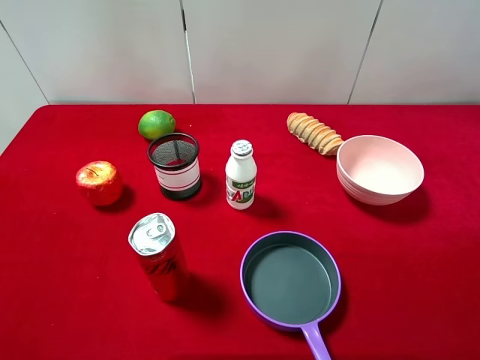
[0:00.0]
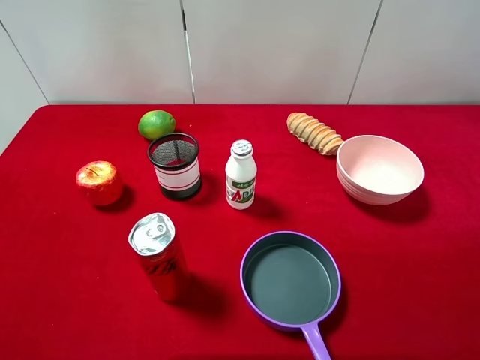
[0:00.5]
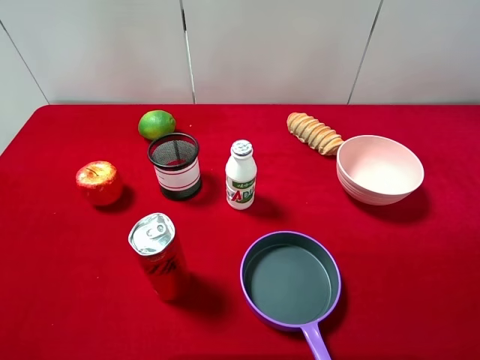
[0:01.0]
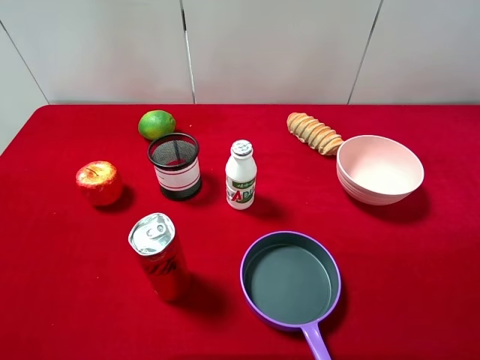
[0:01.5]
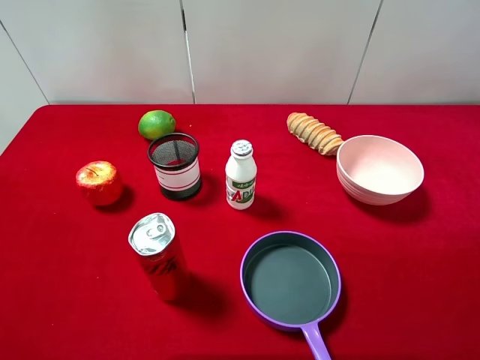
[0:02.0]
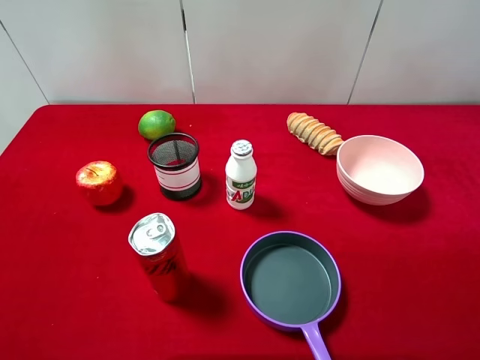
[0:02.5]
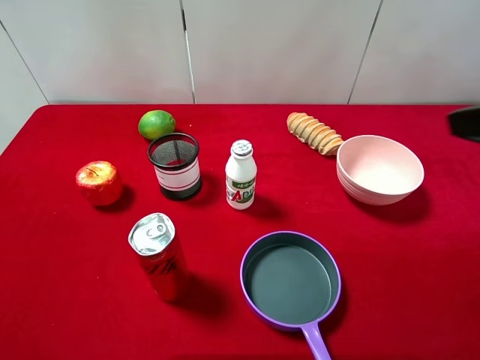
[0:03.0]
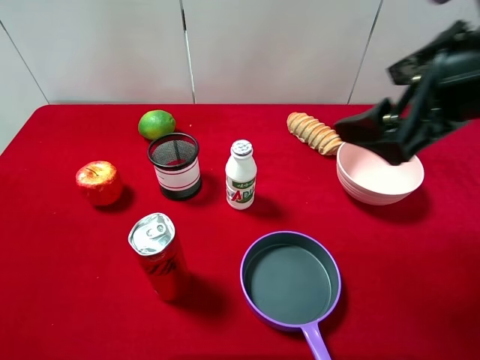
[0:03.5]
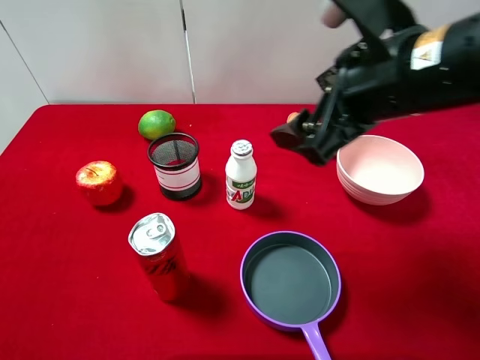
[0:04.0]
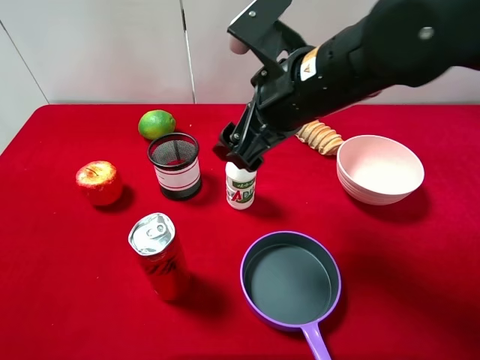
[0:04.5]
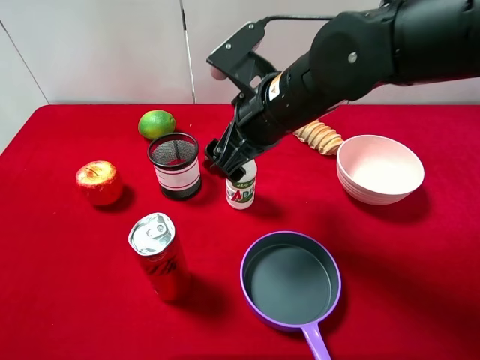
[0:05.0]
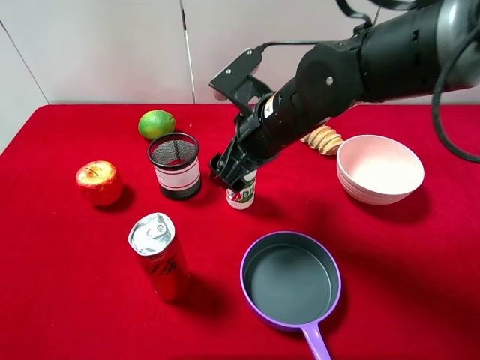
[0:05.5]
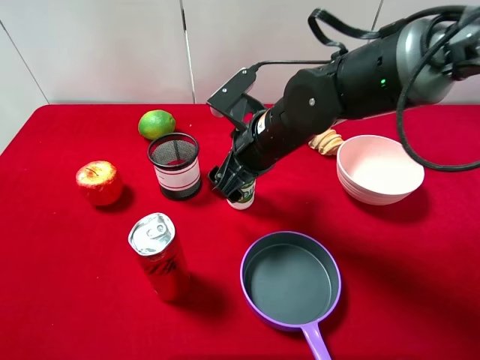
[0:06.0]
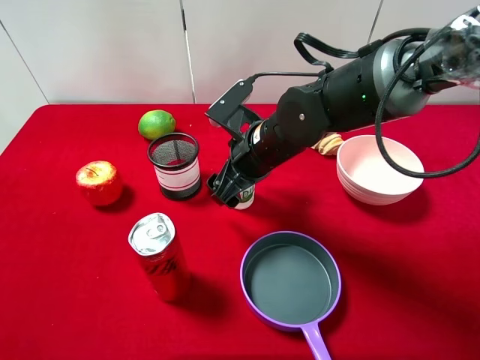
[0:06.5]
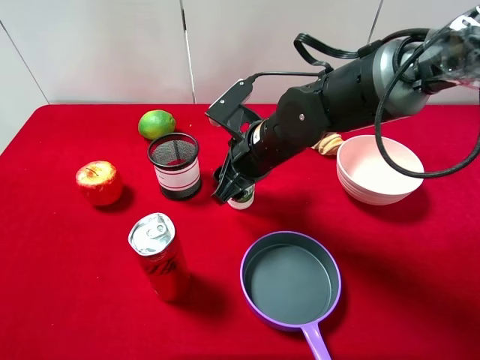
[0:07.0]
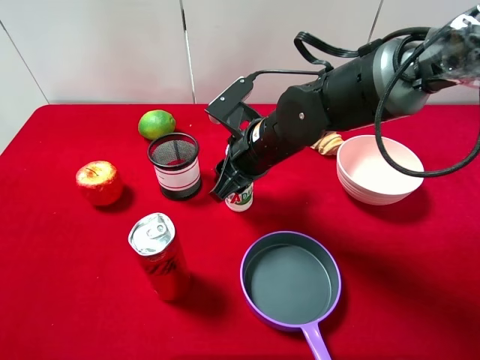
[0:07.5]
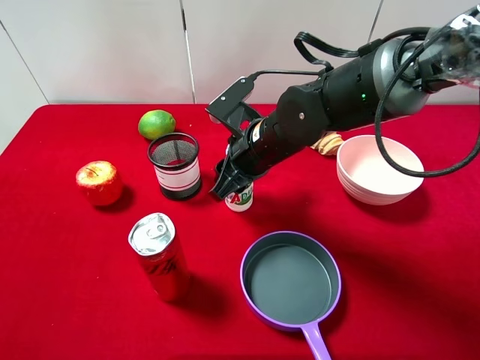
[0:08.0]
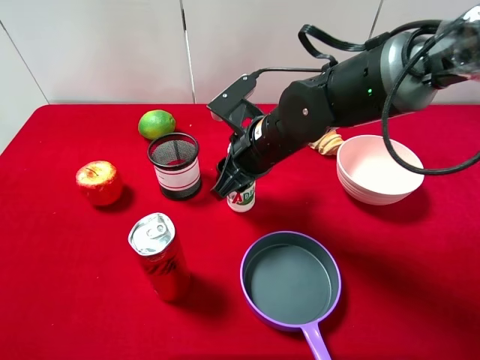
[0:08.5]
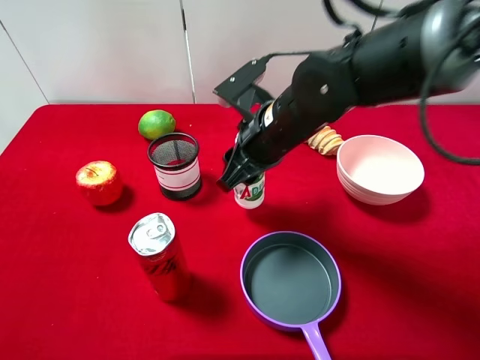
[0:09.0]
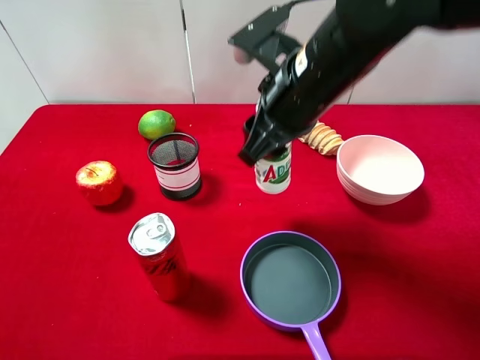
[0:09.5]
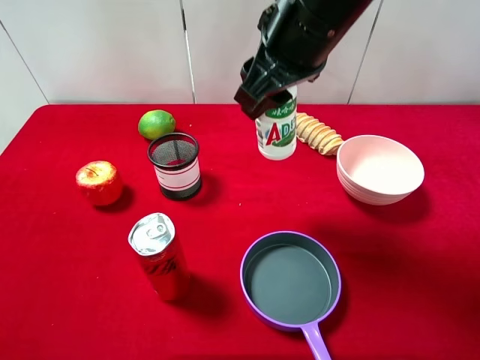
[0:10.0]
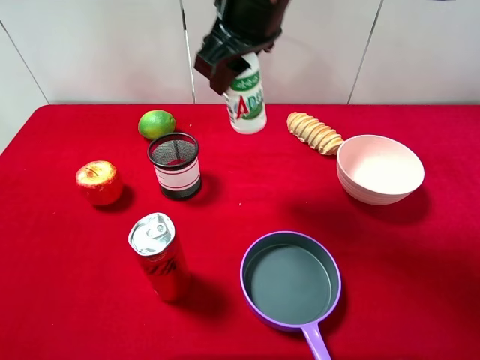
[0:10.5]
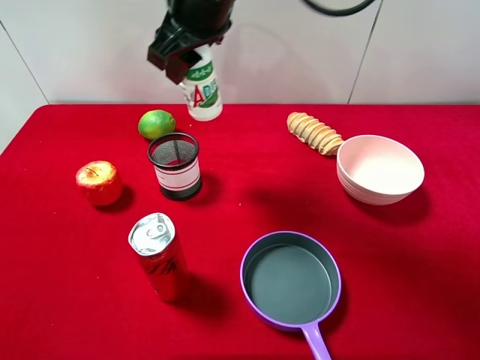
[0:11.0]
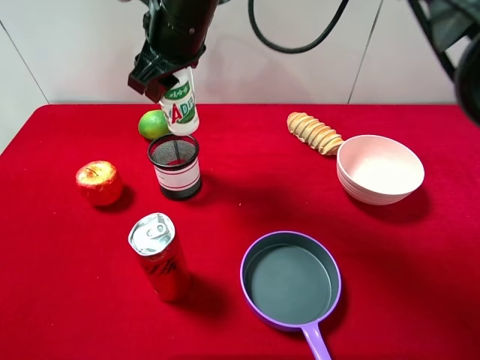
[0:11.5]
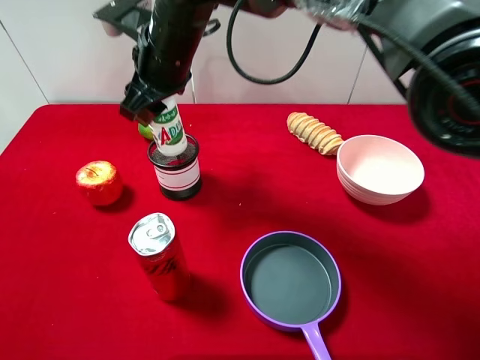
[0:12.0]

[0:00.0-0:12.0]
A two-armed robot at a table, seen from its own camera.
Task of the whole recording: pick up an item with a gripper and place it in a random container on the desktop.
0:00.0 to 0:02.0: Both grippers stay about where they are.
0:02.0 to 0:04.0: The right gripper goes about 25 cm forward and to the left.
0:04.0 to 0:06.0: The right gripper moves downward, to the left and forward, roughly 15 cm.
0:06.0 to 0:08.0: The right gripper closes its fingers.
0:08.0 to 0:10.0: The right gripper shifts roughly 15 cm upward.
0:10.0 to 0:12.0: The right gripper goes about 20 cm to the left, forward and downward.

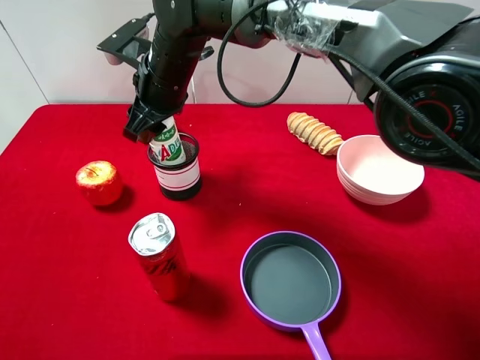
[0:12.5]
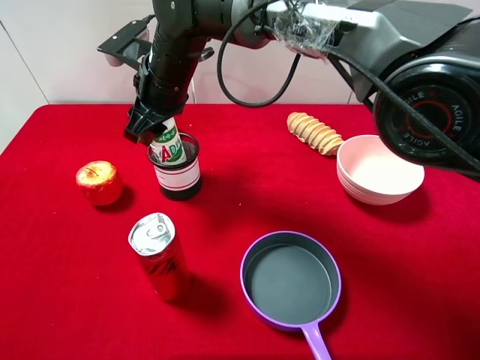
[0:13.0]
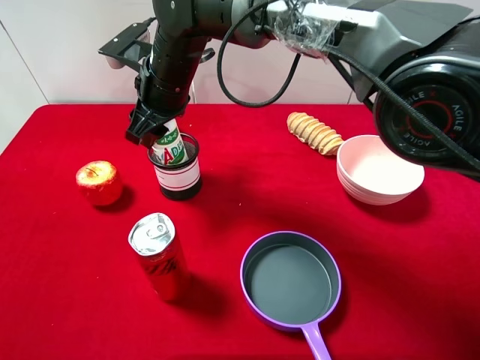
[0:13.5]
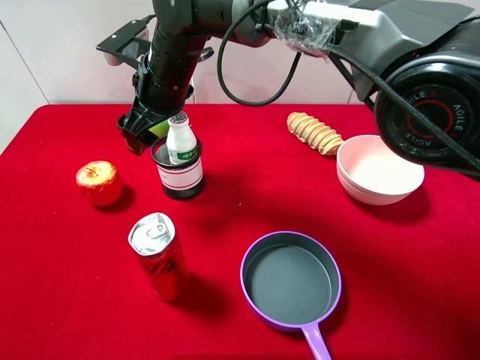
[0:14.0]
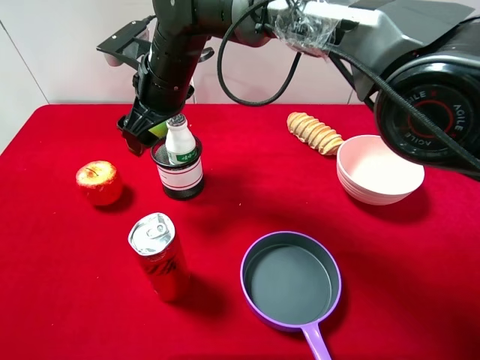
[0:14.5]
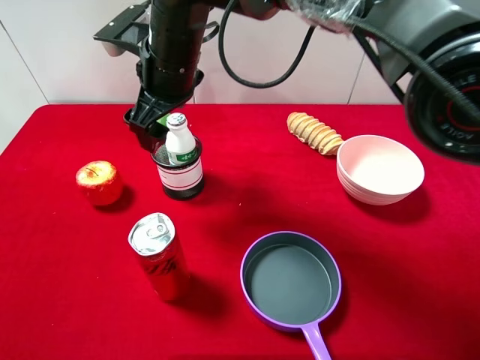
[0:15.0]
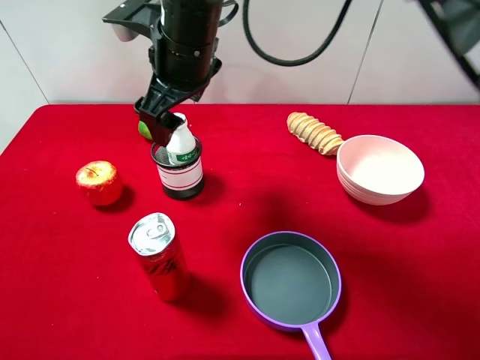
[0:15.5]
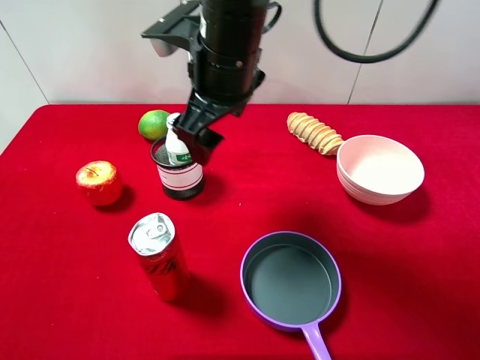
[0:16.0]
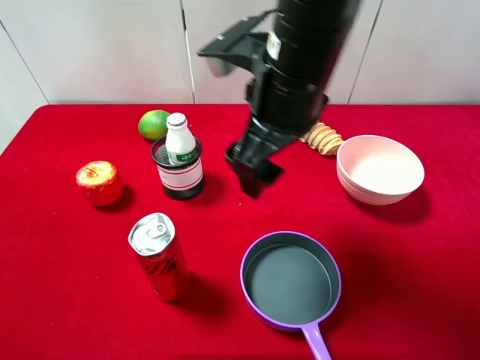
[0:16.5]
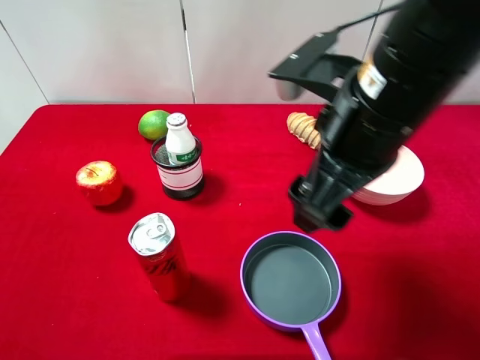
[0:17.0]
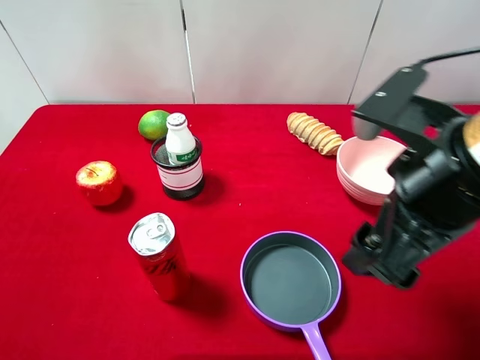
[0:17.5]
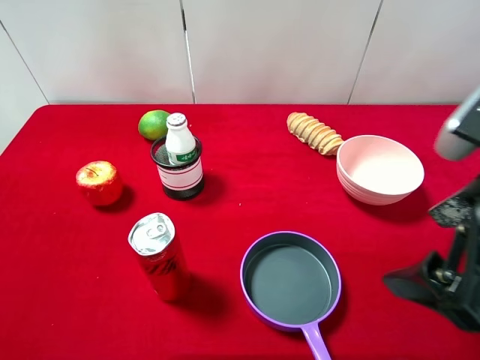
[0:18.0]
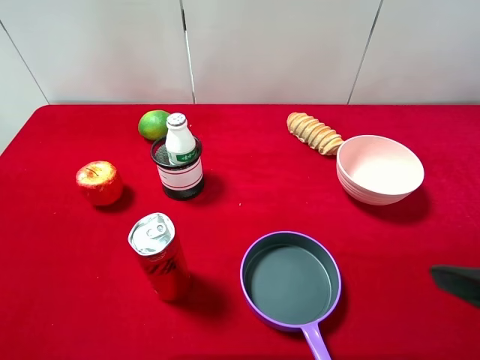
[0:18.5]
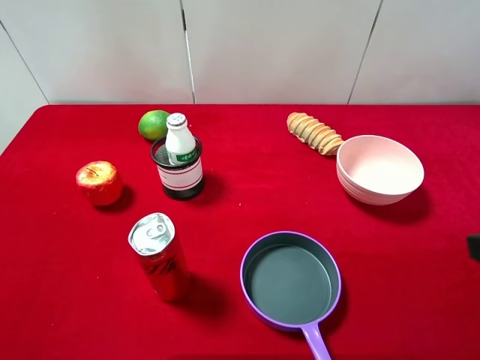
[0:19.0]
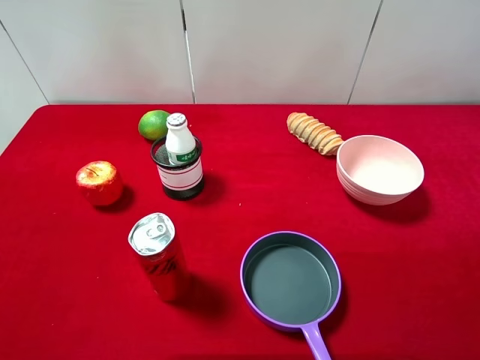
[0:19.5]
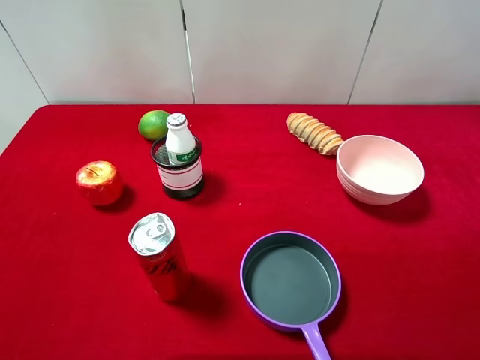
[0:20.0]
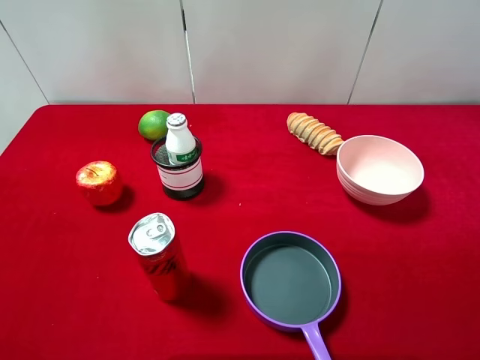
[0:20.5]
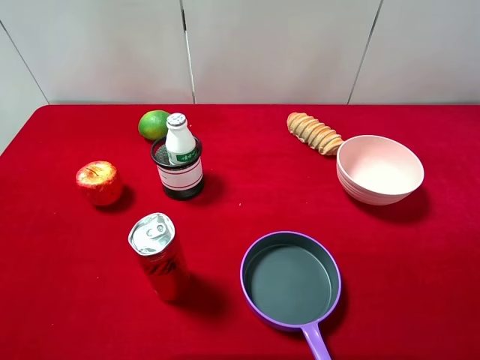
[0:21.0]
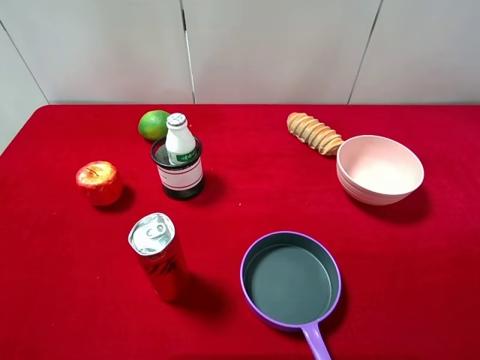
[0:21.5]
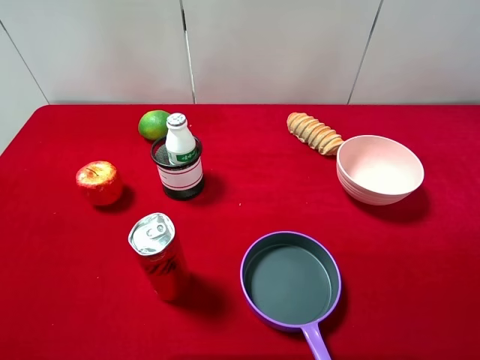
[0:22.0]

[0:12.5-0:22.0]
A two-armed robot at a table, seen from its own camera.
Task of the whole recording: pick up an item with a gripper and place it in a random container on the desktop.
0:12.5 to 0:14.5: The right gripper opens its fingers.
0:14.5 to 0:16.5: The right gripper goes some 20 cm to the right, backward and upward.
0:16.5 to 0:18.0: The right gripper moves to the right and backward, approximately 20 cm.
0:18.0 to 0:20.0: The right gripper is displaced to the right by some 10 cm.

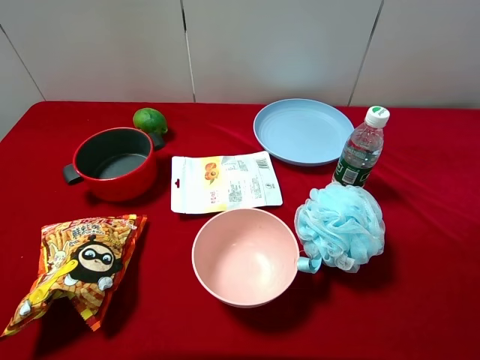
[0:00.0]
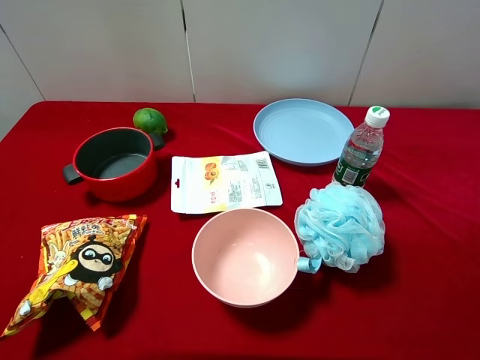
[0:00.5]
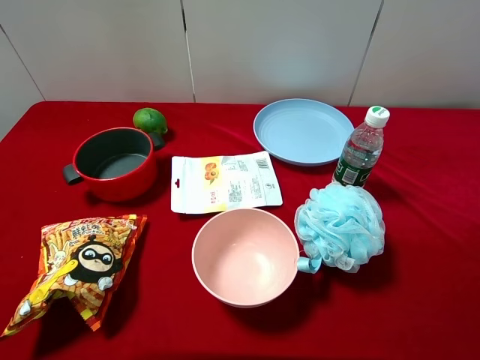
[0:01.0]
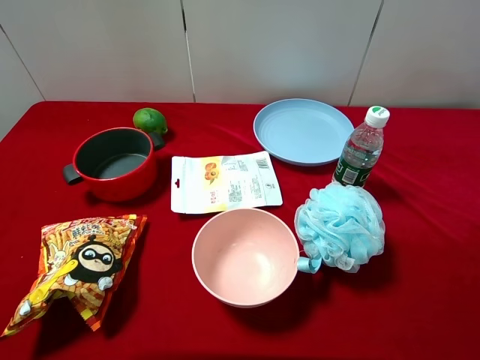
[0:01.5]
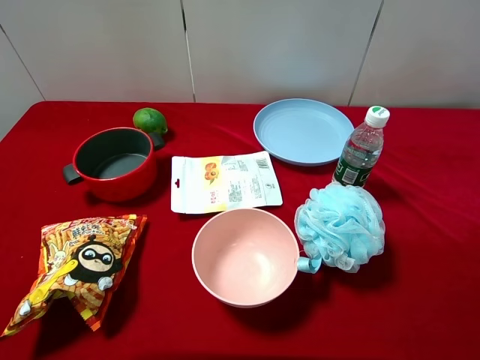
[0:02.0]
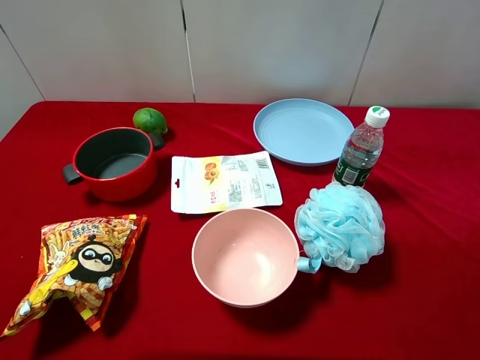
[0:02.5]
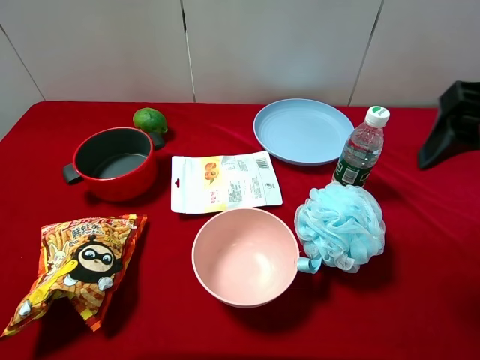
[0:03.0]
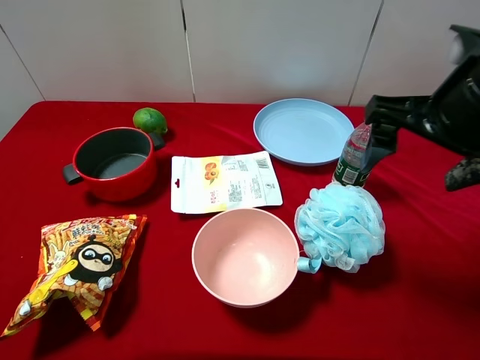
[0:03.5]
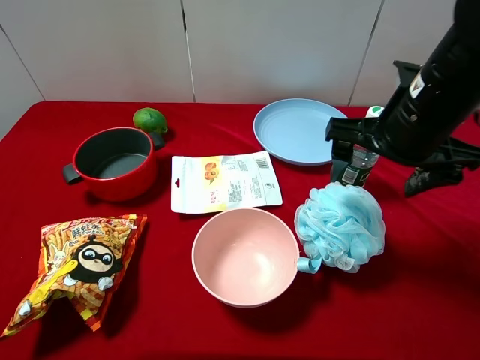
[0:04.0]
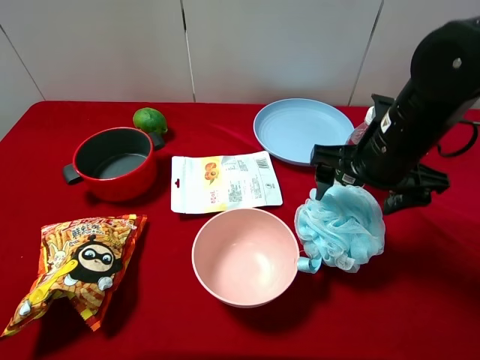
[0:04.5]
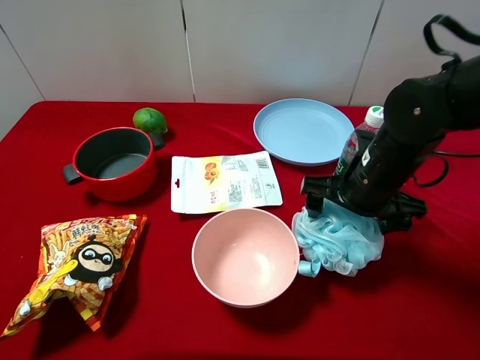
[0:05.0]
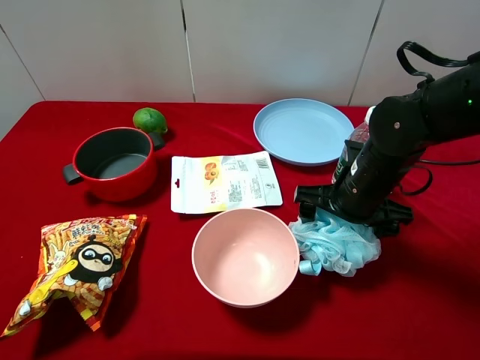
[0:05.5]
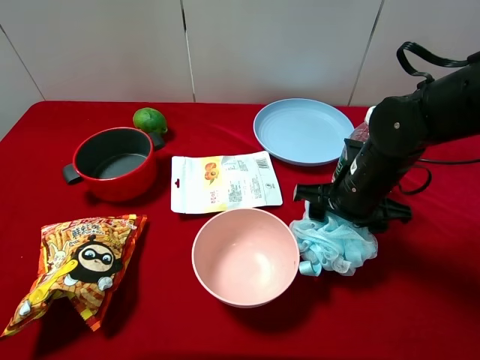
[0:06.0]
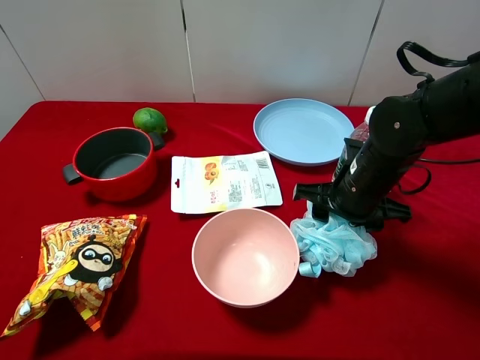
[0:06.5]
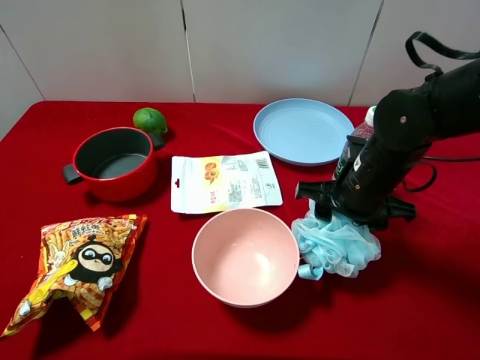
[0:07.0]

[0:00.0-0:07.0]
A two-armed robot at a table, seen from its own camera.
Task of the whole recording: pick up an item with a gripper and place it in a random container on the desktop.
0:02.0 to 0:03.5: The right gripper shifts roughly 15 cm forward, to the left and downward.
0:03.5 to 0:05.0: The right gripper goes about 15 cm downward.
0:05.0 to 0:07.0: The right gripper closes up.
